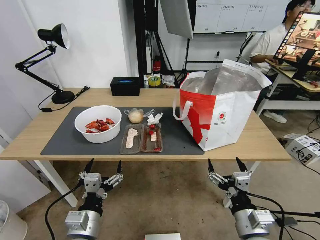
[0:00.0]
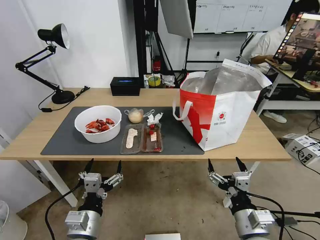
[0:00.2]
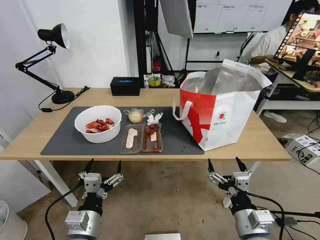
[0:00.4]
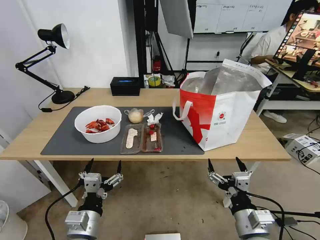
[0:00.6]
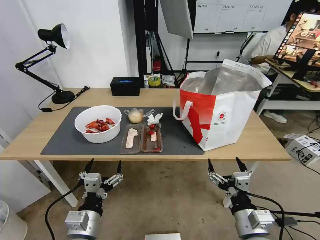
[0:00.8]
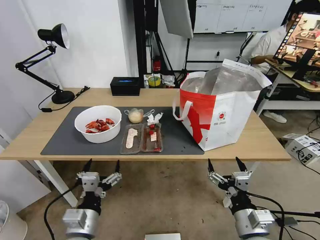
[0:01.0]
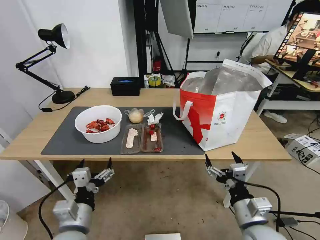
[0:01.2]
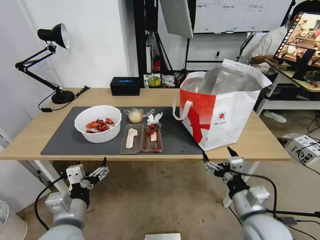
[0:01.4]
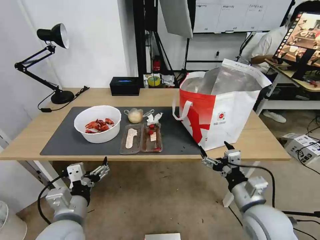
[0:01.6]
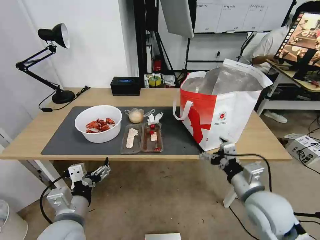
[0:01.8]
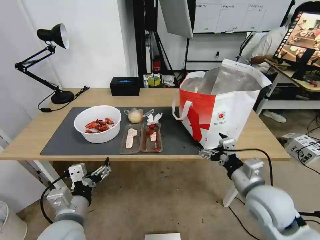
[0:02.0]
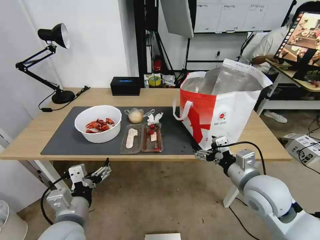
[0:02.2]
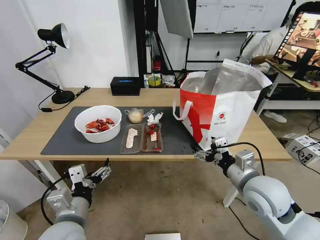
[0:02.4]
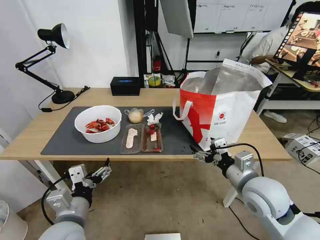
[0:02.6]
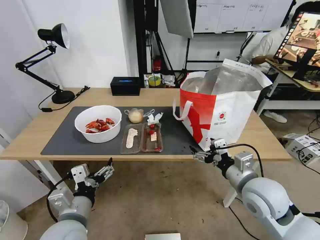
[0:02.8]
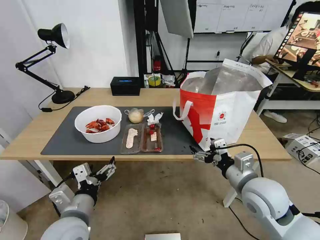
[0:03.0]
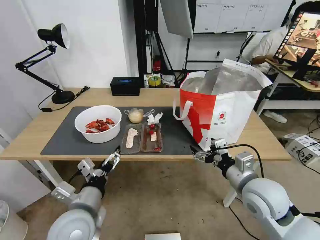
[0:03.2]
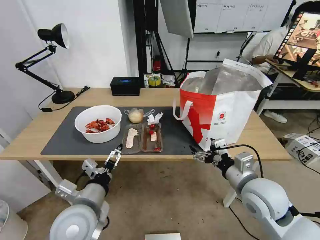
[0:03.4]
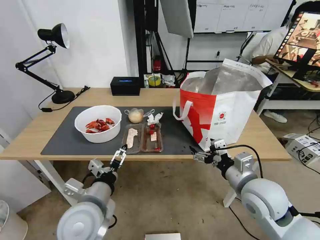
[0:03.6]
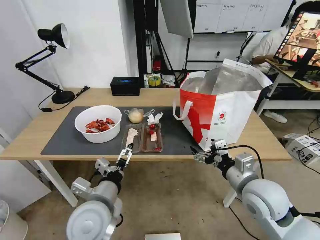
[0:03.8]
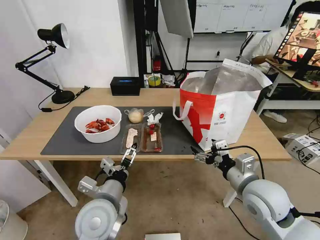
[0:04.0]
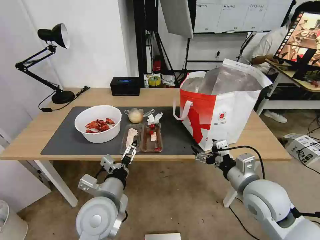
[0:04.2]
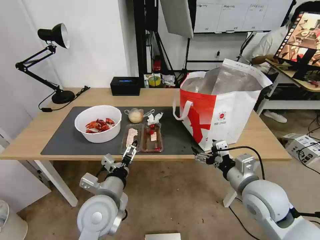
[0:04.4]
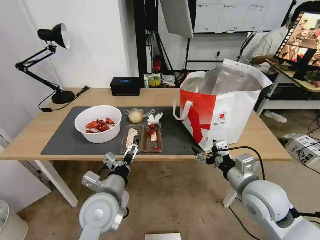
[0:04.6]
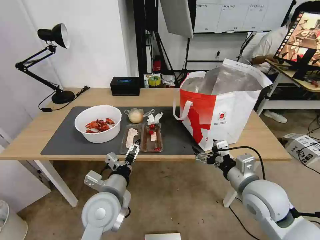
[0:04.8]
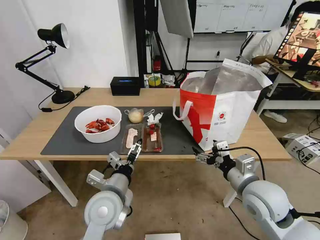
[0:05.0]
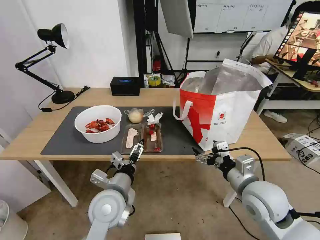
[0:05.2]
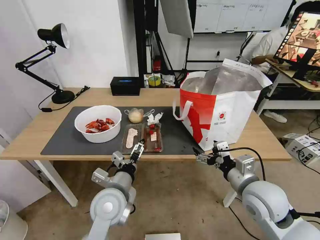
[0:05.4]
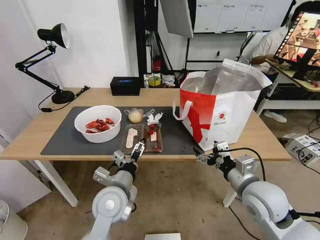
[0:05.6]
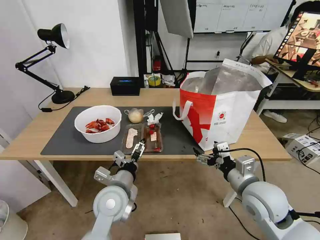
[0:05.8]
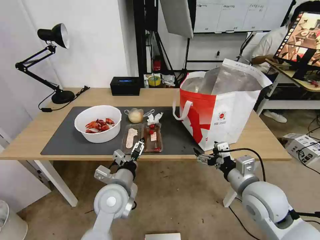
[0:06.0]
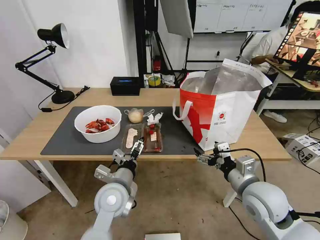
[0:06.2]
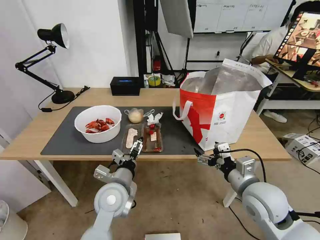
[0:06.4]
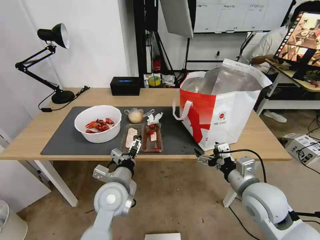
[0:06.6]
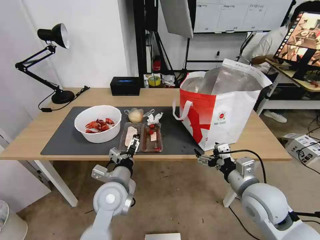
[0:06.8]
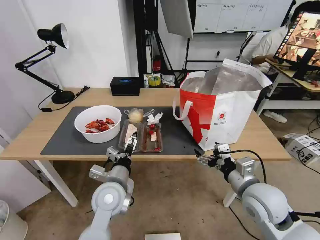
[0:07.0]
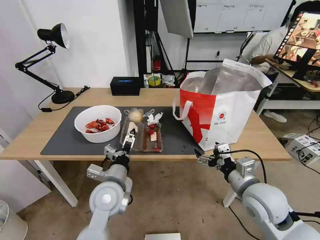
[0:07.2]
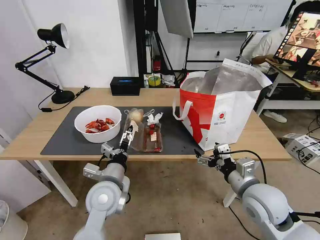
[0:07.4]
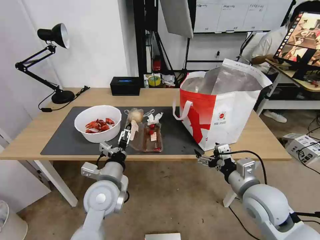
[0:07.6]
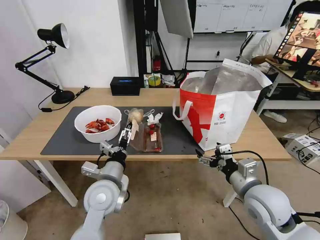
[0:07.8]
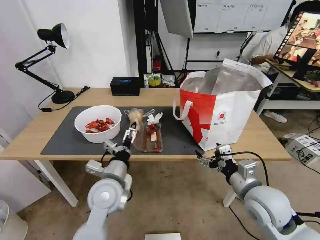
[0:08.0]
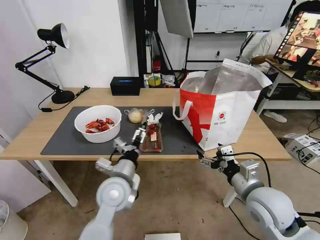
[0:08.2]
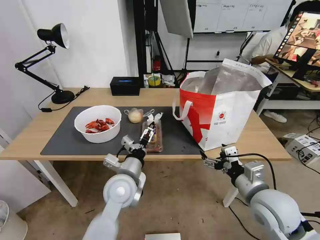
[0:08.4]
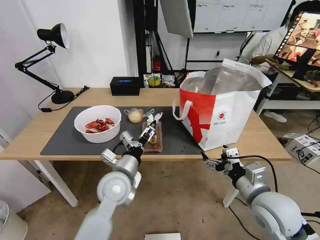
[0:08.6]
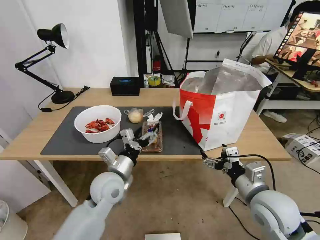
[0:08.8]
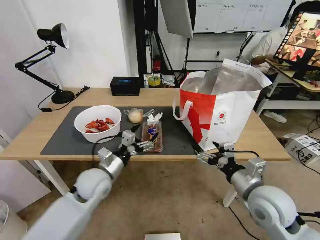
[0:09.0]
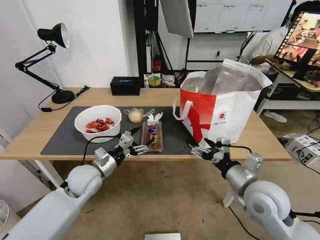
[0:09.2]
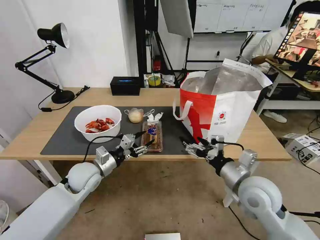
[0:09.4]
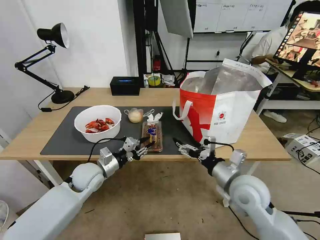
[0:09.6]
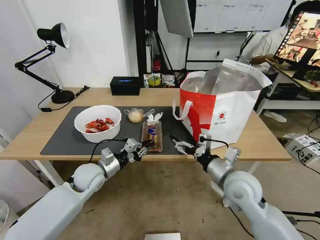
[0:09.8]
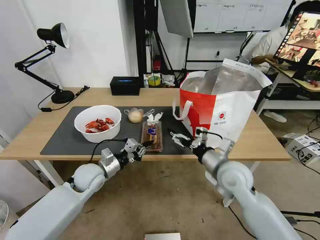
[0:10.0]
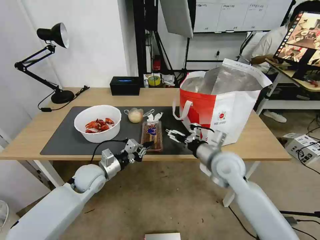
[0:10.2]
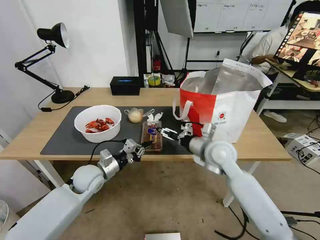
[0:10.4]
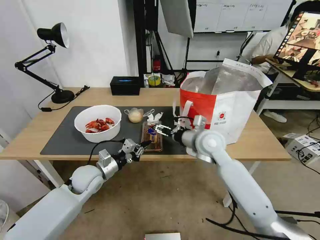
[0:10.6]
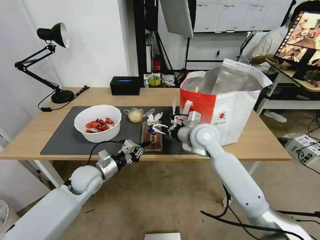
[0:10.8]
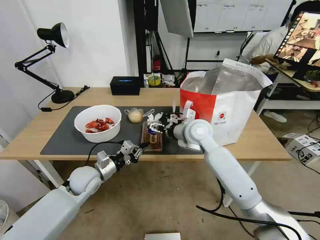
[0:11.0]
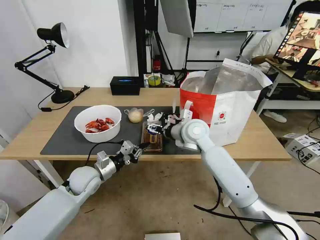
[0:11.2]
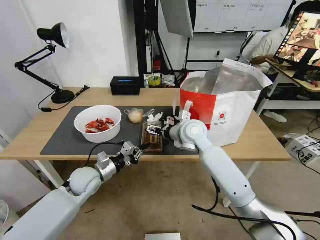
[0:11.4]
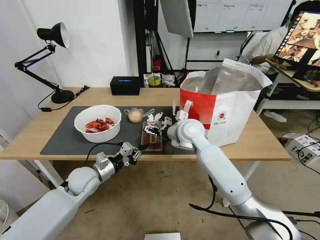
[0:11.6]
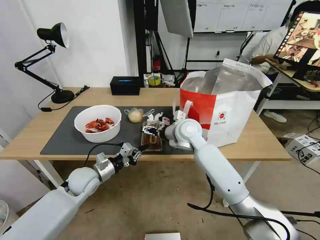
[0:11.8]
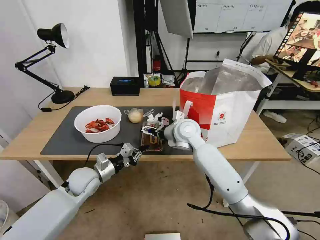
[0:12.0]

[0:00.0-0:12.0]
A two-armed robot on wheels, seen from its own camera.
Task of the whole recording: Pick up the trash from the table and place it into the takeout bag.
0:01.6 to 0:03.0: The right gripper moves forward, approximately 5 cm.
0:03.0 to 0:04.4: The left gripper heads to the right and forward, covering about 10 cm.
0:04.4 to 0:06.0: The left gripper ends up roughly 5 cm from where it was.
0:06.0 to 0:07.6: There are only small adjustments of the grippers.
0:07.6 to 0:09.0: The left gripper changes place by approximately 5 cm.
0:09.0 to 0:10.4: The left gripper ends up approximately 5 cm from where it was, and closes up; the right gripper shifts approximately 20 cm forward and to the left.
0:10.4 to 0:12.0: The right gripper shifts approximately 10 cm to the left and forward.

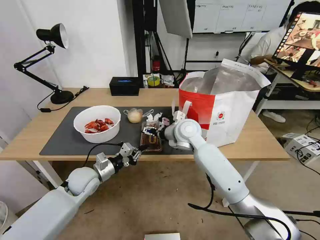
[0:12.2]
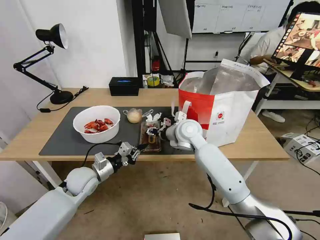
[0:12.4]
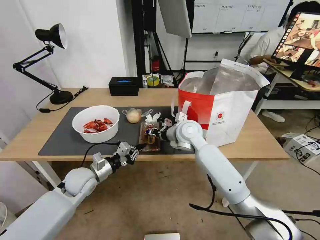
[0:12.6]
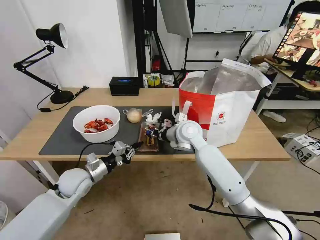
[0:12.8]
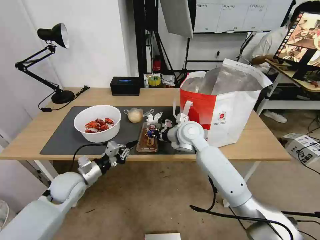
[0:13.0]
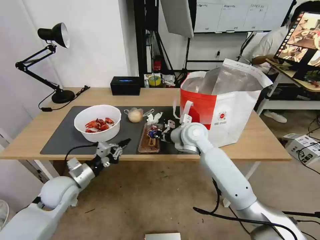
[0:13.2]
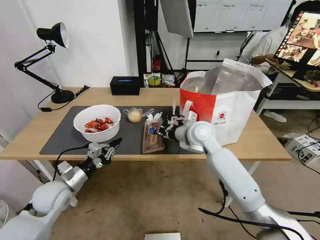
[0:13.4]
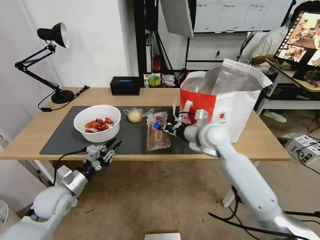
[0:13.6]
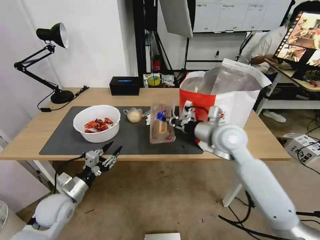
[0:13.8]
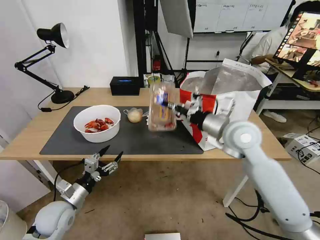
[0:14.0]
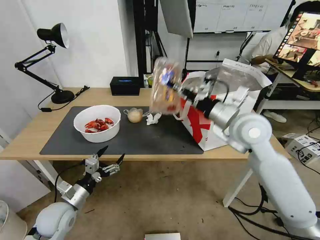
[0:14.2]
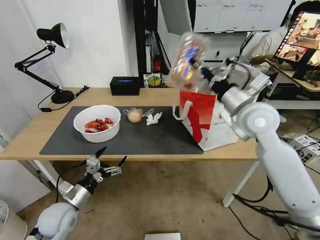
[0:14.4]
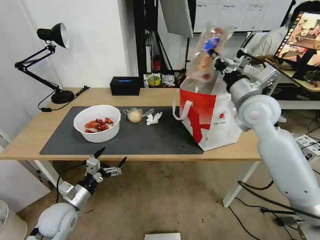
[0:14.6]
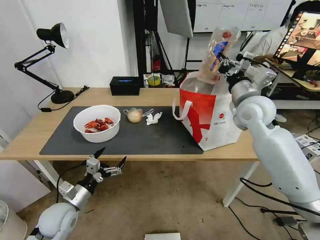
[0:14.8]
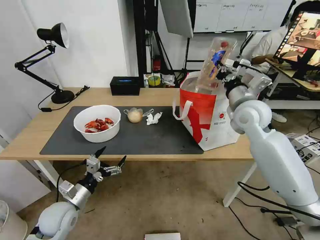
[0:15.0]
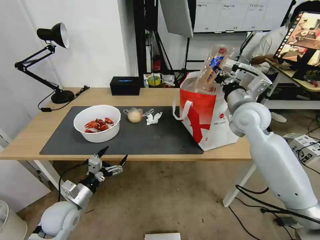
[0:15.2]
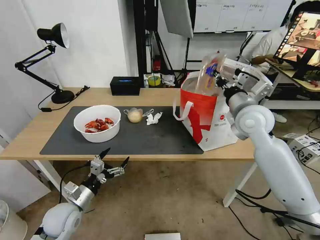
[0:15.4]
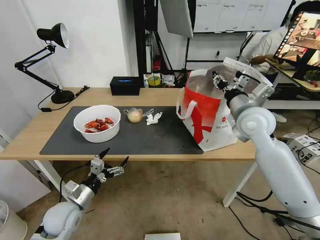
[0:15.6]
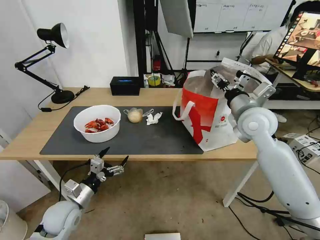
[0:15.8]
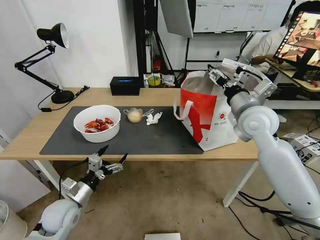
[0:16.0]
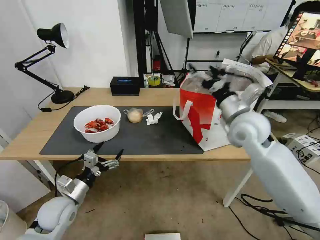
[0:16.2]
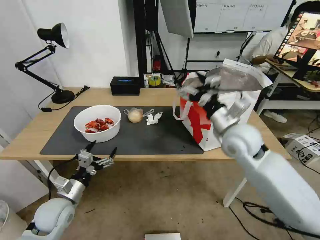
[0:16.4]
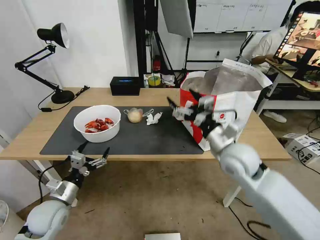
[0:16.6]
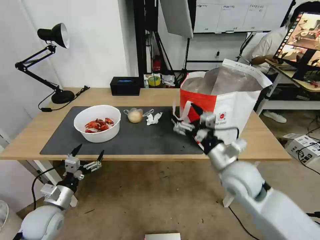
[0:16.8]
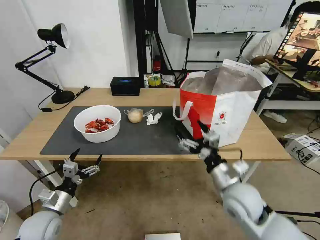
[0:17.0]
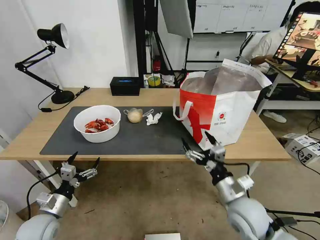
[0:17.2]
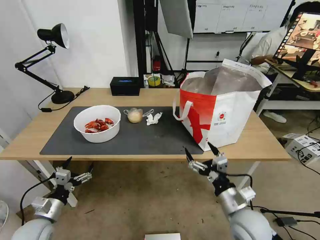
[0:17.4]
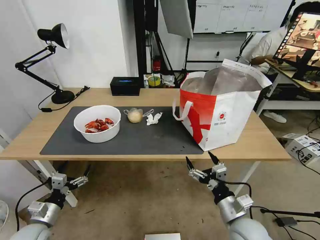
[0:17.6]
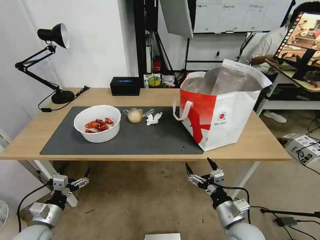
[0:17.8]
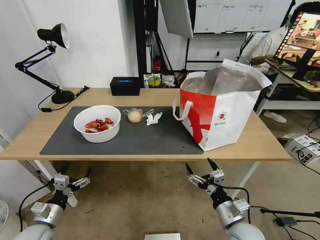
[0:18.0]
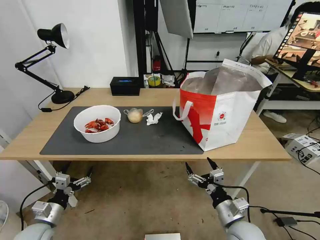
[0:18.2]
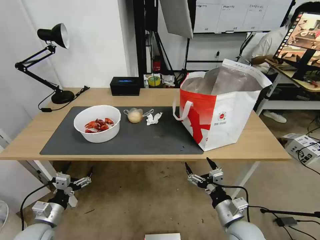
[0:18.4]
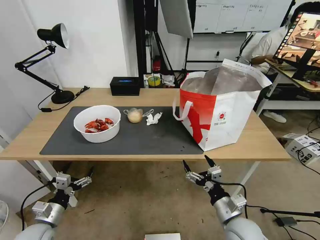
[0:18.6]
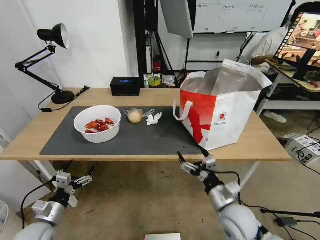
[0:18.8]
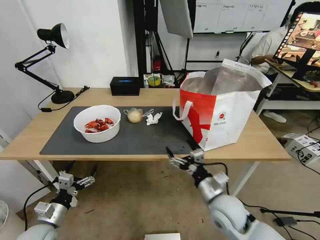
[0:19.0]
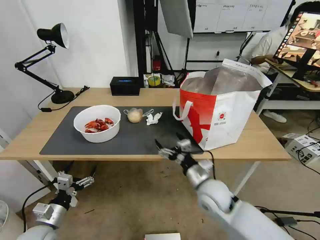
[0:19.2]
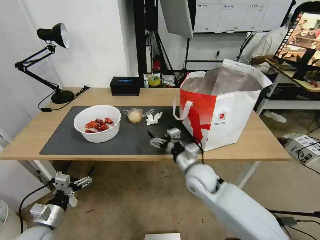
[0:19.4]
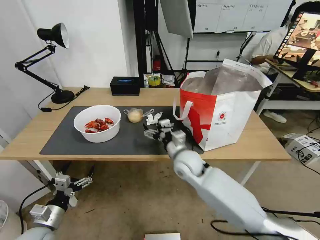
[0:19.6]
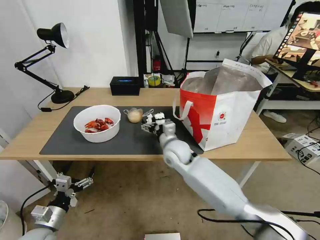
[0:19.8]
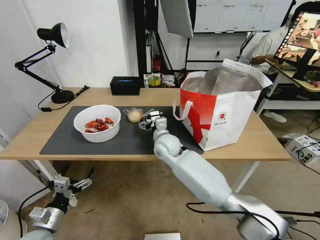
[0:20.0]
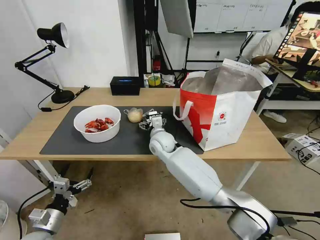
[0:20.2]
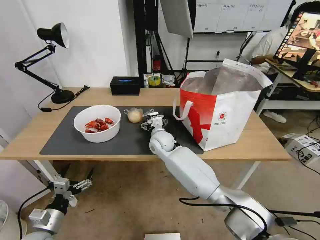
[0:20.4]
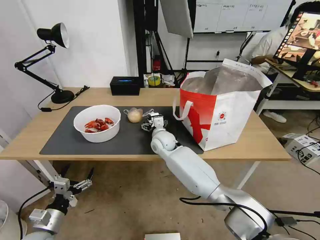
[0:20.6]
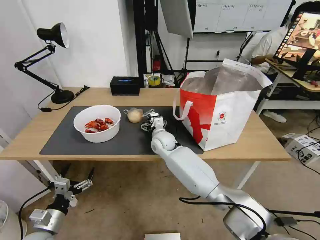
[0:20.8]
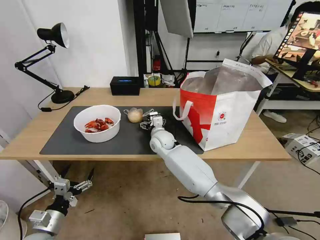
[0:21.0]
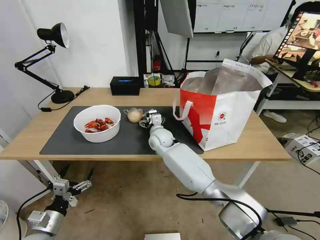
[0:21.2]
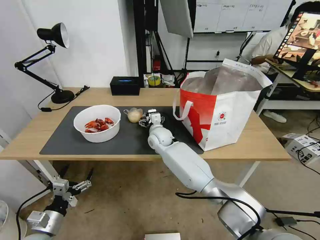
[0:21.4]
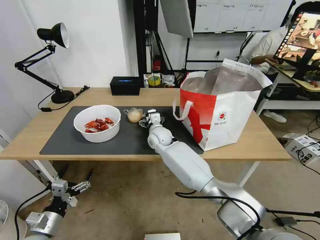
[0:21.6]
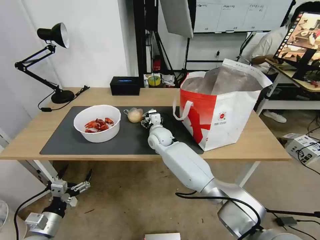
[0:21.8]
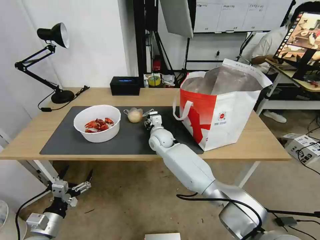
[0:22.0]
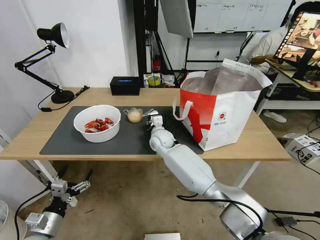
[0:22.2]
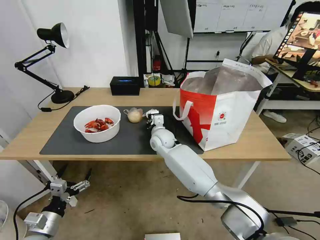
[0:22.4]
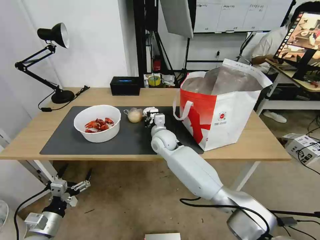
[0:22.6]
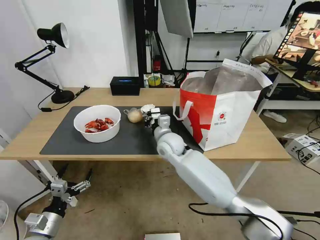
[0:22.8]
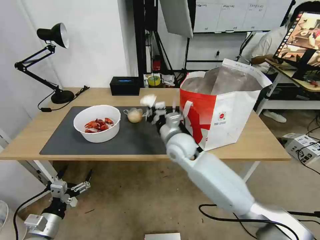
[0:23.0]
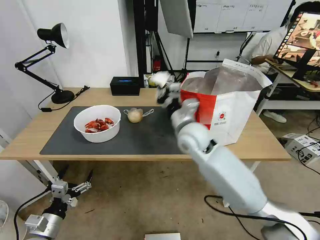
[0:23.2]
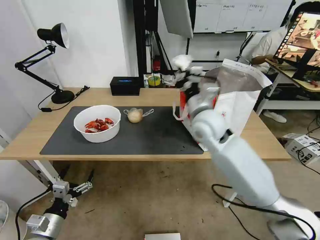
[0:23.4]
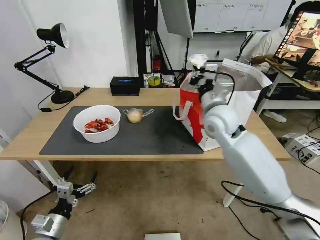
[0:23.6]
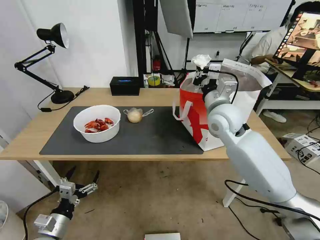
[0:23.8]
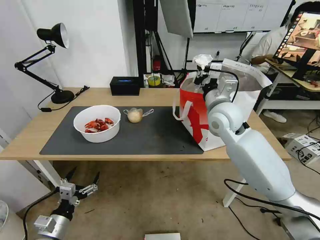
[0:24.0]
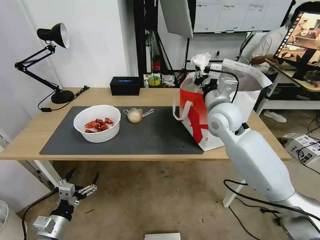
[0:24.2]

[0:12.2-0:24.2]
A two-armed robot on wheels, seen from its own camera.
Task of the whole recording: Pick up the trash from the table and place it into the takeout bag.
0:12.2 to 0:13.8: The left gripper moves backward and to the left, some 10 cm, and opens up. Meanwhile the right gripper is displaced to the right and backward by some 10 cm, and closes its fingers.
0:13.8 to 0:15.2: The right gripper is displaced to the right and upward by approximately 10 cm, while the left gripper opens its fingers.
0:15.2 to 0:16.6: The right gripper travels backward and downward by approximately 10 cm, and opens its fingers.
0:16.6 to 0:18.2: The right gripper travels downward and backward by about 25 cm. Meanwhile the left gripper travels downward and to the left by roughly 10 cm.
0:18.2 to 0:19.8: The right gripper moves forward and to the left, roughly 30 cm.
0:19.8 to 0:21.2: The right gripper is displaced forward and to the left by some 10 cm.
0:21.2 to 0:22.6: The right gripper closes its fingers.
0:22.6 to 0:24.2: The right gripper moves to the right and upward, about 25 cm.
